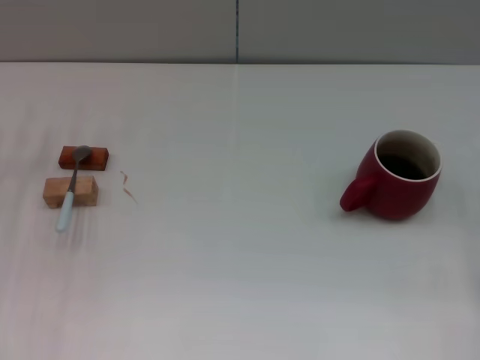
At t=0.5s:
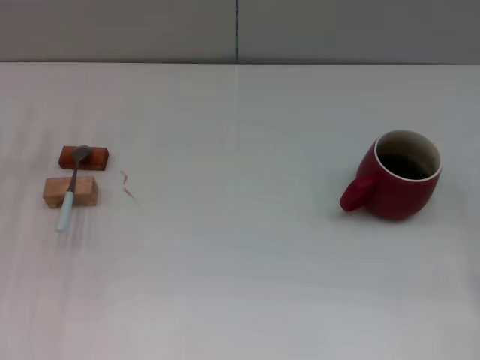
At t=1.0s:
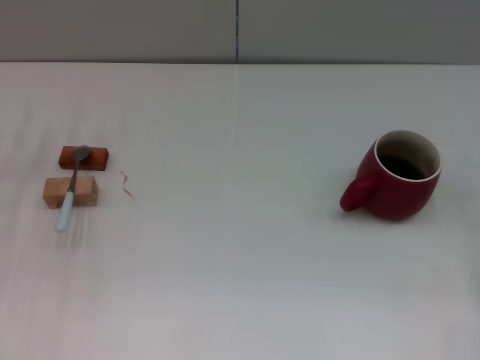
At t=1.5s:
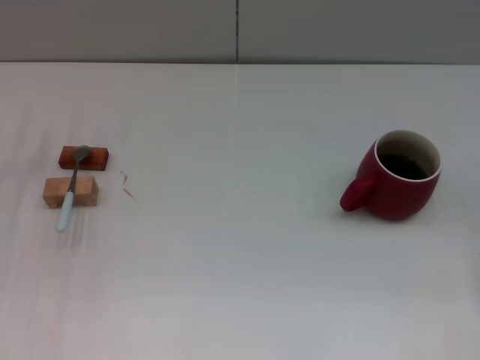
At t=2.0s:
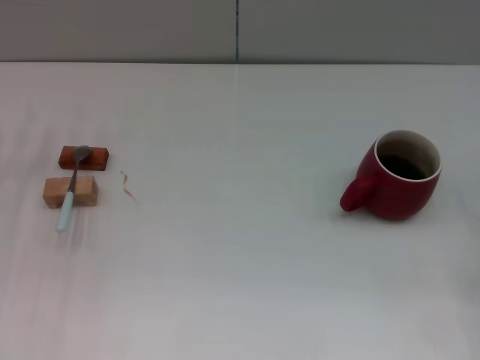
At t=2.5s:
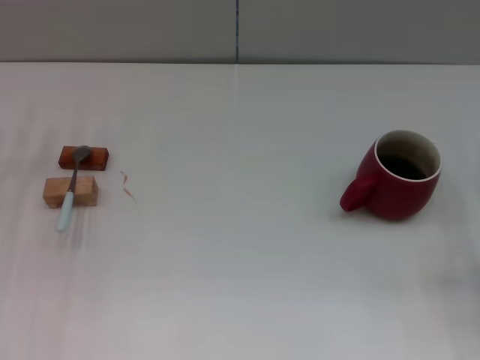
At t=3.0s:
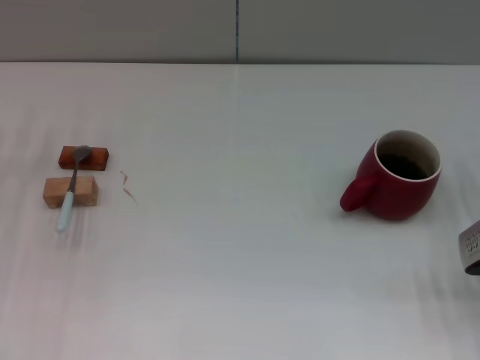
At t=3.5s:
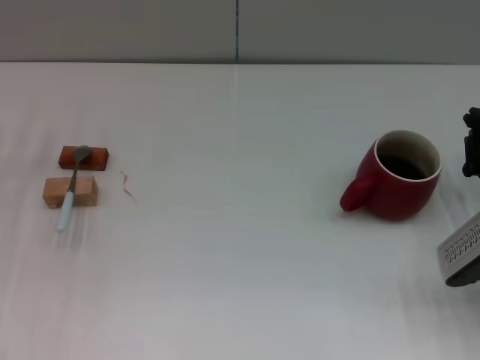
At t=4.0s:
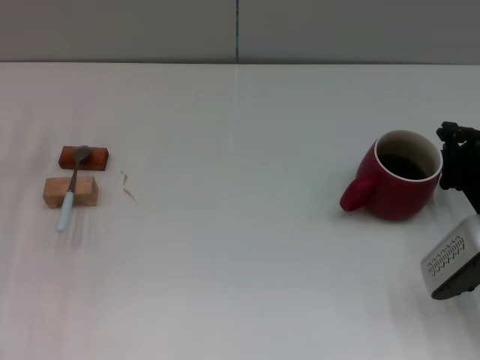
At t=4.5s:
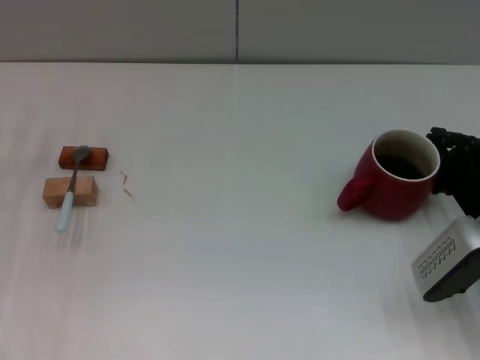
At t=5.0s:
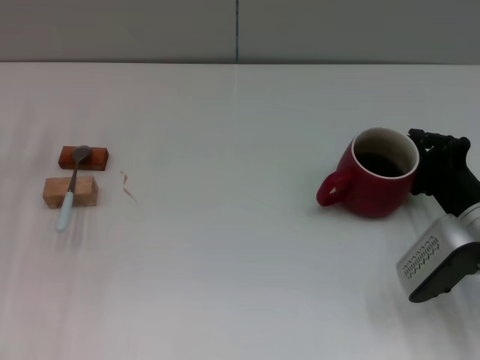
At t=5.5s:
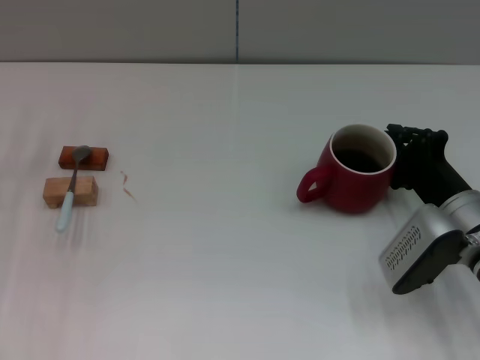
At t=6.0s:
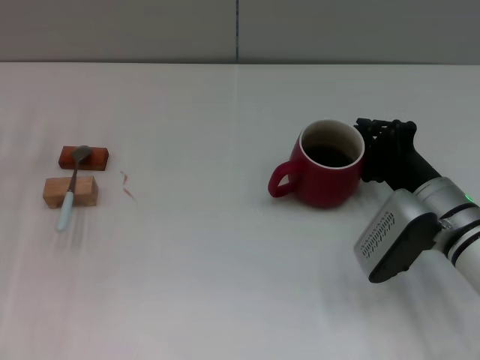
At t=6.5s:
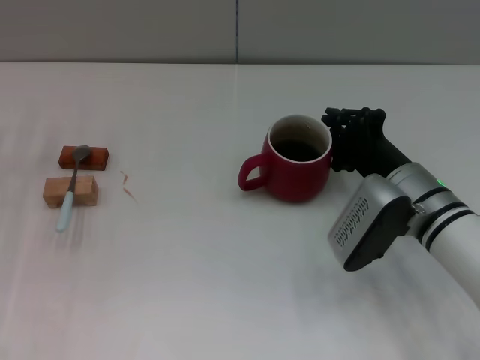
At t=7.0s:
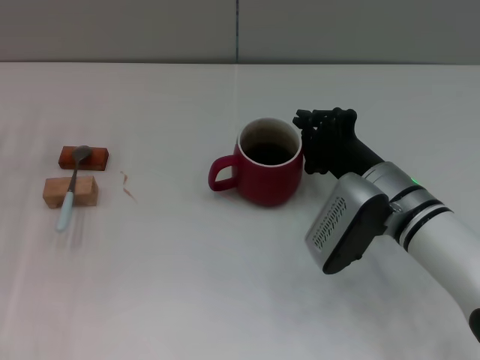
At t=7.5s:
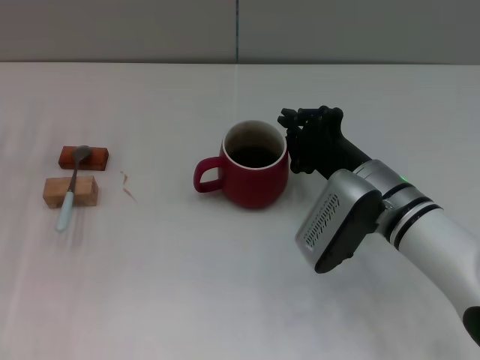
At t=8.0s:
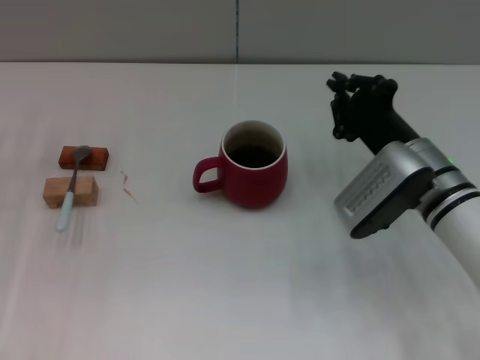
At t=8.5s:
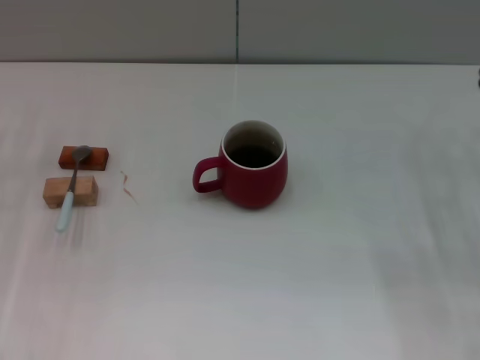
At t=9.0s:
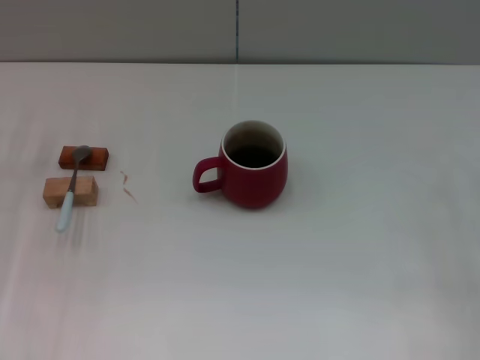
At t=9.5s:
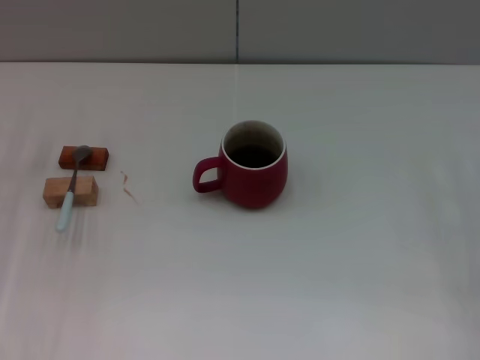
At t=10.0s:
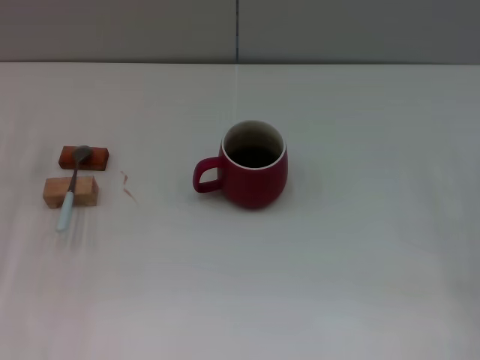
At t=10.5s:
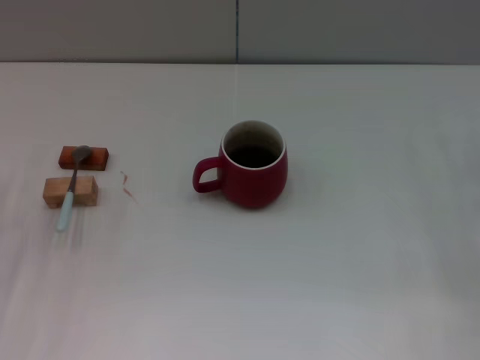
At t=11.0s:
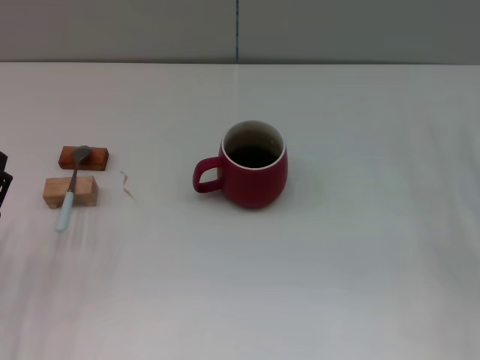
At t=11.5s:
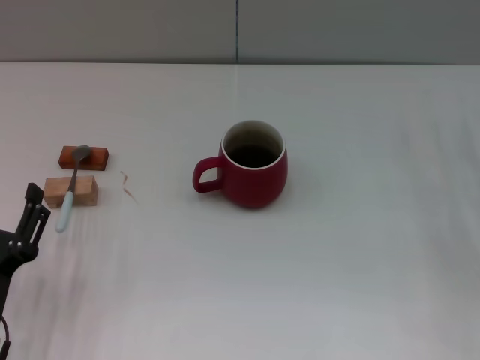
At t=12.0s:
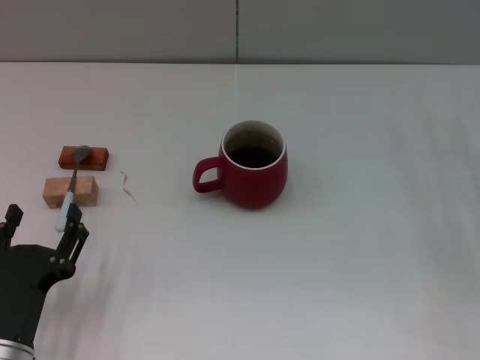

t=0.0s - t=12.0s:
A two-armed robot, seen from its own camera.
Task of the whole recording: Move the red cup to the center, lift the blue spoon, stir it three times in the cup, and put the spoon into the cup.
Step, t=0.0s - t=7.5s: Move the cup with coffee to the center of view with the right gripper.
t=2.0s - t=4.0s: The right gripper heads to the left, covering approximately 10 cm.
t=4.0s - t=6.0s: The right gripper is displaced to the left by approximately 5 cm.
t=8.0s - t=10.0s: The right gripper travels to the right by some 15 cm, and opens up.
t=10.0s - t=12.0s: The left gripper moves backward and to the right, approximately 20 cm.

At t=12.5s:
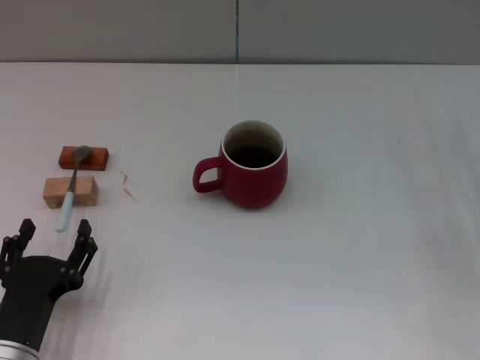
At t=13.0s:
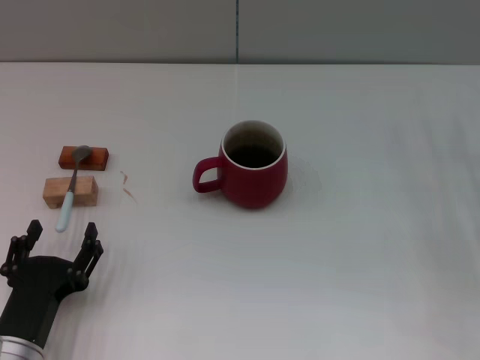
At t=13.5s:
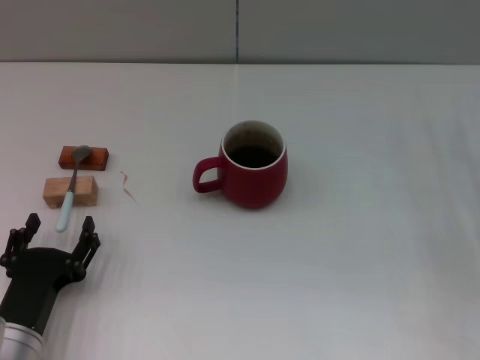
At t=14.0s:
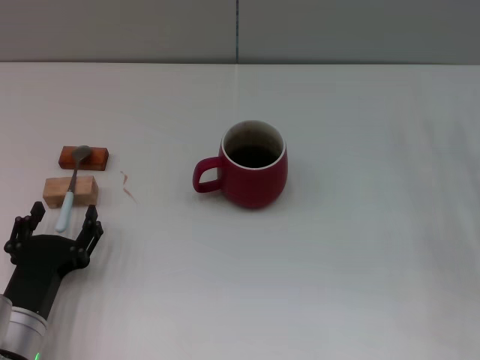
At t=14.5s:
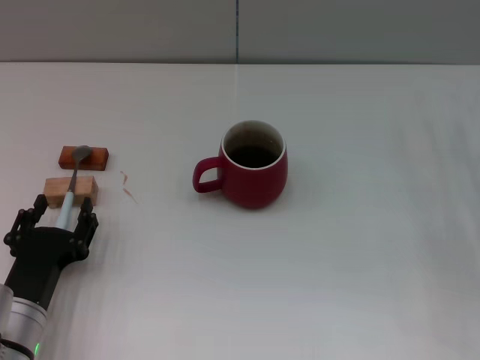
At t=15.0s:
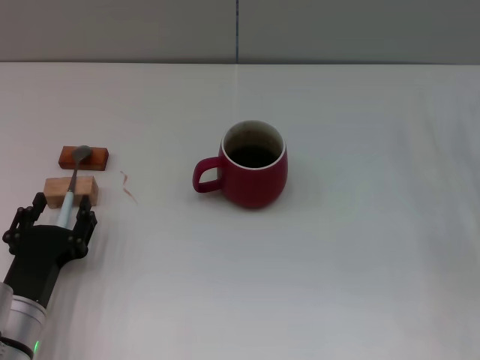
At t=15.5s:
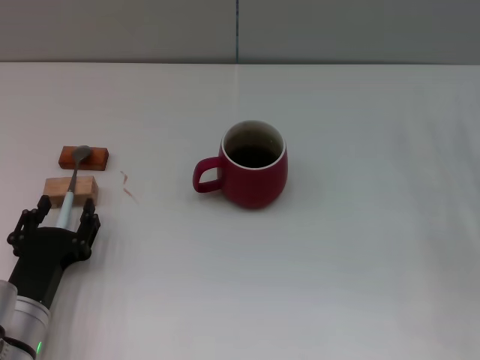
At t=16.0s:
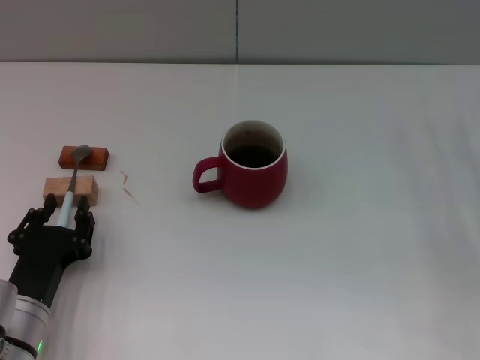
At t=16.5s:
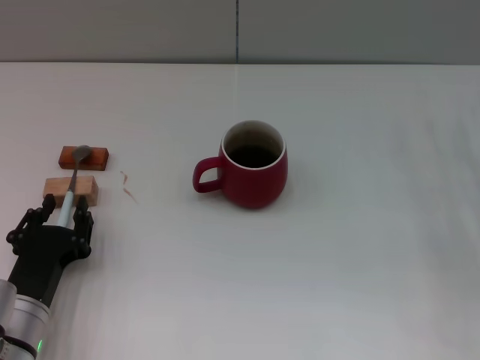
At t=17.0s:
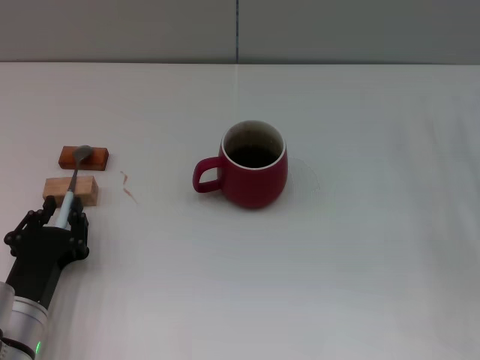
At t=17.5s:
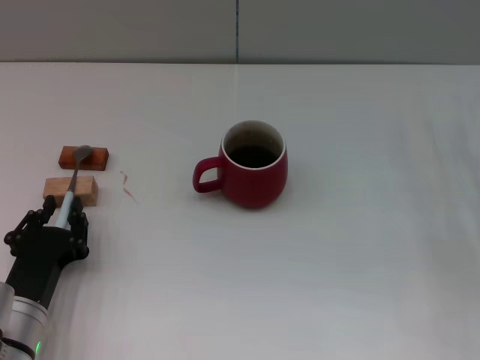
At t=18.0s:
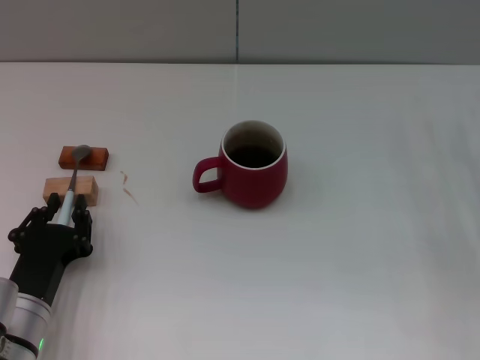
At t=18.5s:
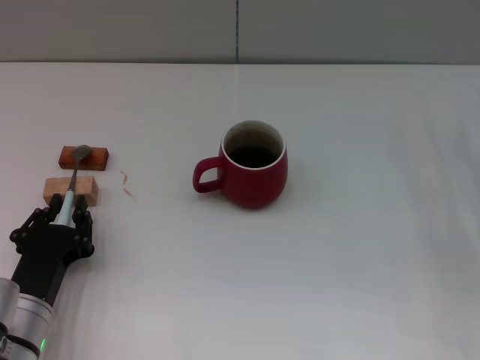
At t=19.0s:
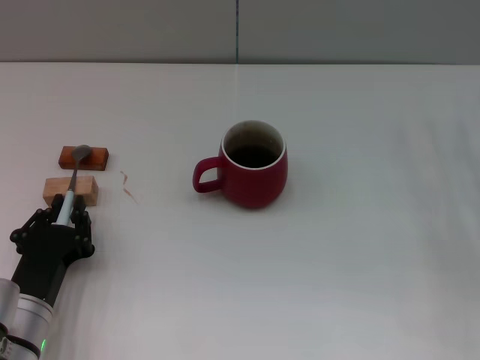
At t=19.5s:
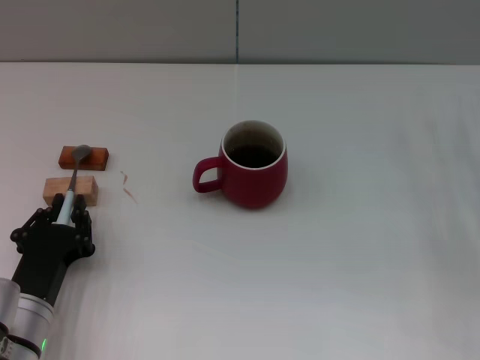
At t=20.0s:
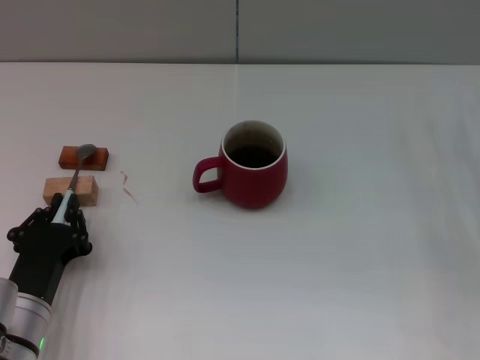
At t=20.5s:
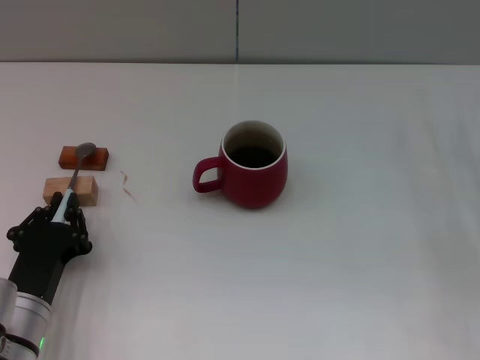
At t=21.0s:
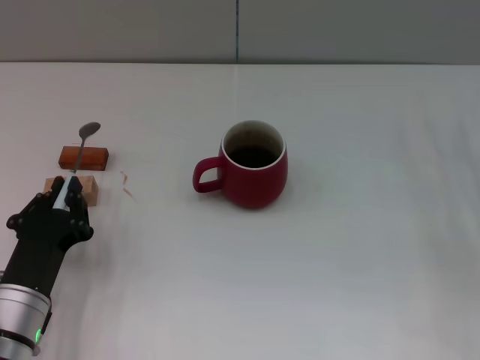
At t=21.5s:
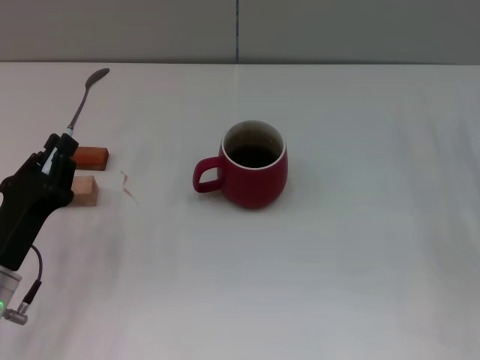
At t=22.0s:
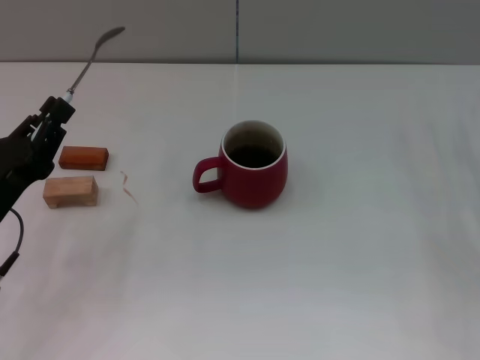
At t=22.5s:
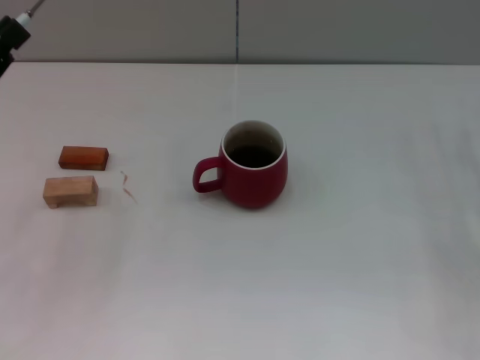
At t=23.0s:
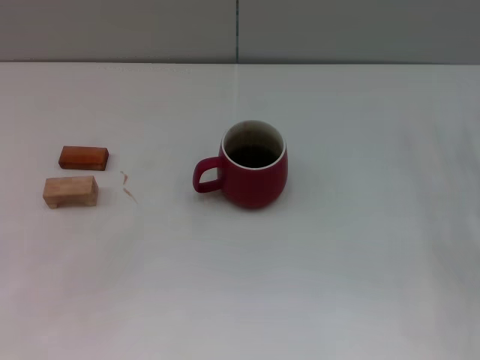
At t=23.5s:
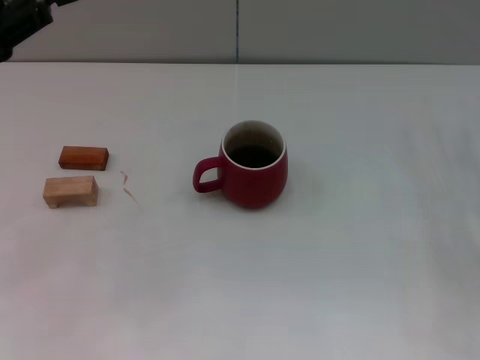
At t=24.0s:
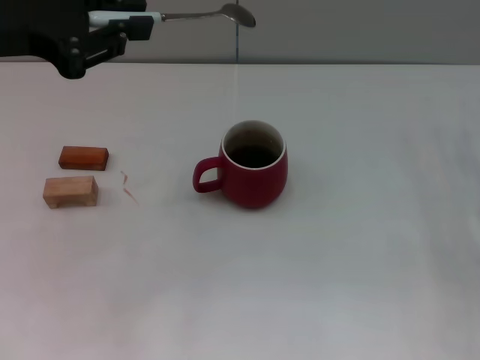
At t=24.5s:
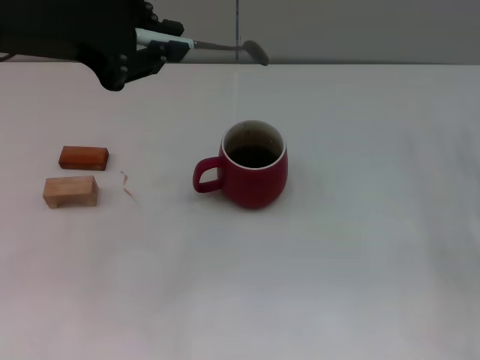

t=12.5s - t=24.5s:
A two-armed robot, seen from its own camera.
Task of the whole recording: Move the red cup to the center, lift the blue spoon, stir it three times in the cup, and put the spoon into the cup.
Step, t=12.5s - t=21.0s: Pick up the spoon with the left gripper.
t=12.5s - t=14.5s: There are only small adjustments of the grippers.
t=14.5s - t=16.5s: The left gripper closes its fingers.
t=16.5s - t=20.5s: The two grippers keep their place.
t=20.5s - t=22.5s: The left gripper travels upward, to the left and forward by some 20 cm.
t=22.5s - t=24.5s: The left gripper is displaced upward and to the right by some 20 cm.

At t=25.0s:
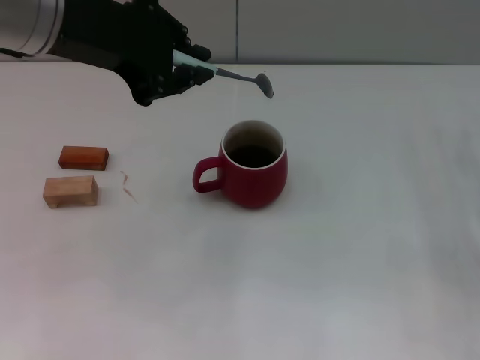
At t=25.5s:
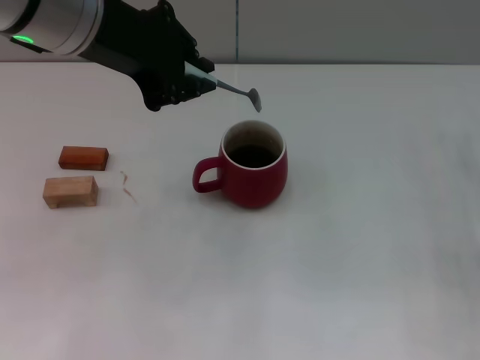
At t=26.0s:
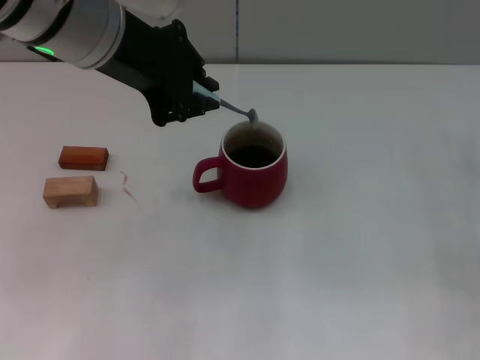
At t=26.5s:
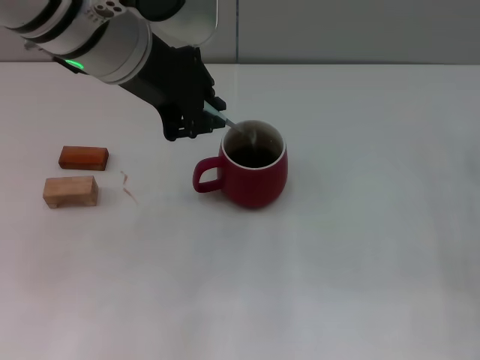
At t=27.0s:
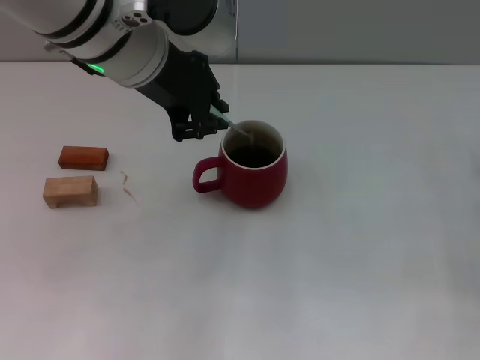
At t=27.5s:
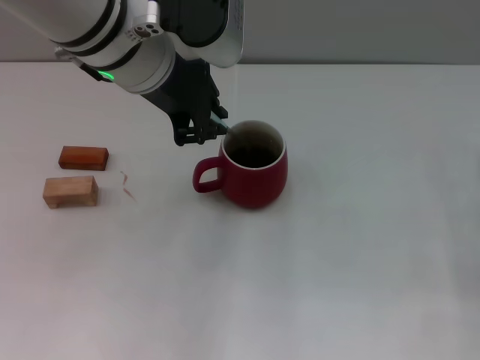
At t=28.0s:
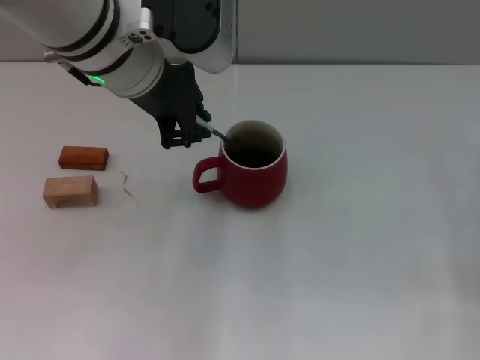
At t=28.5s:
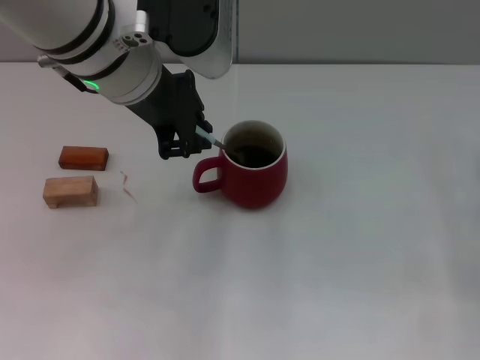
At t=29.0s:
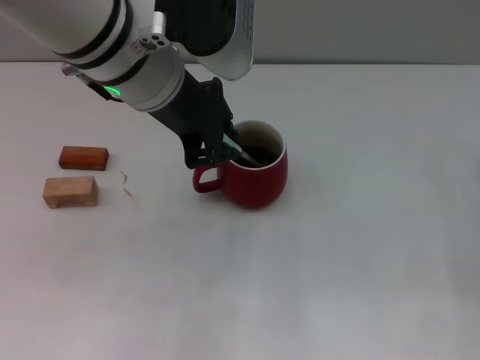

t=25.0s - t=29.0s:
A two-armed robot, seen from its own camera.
Task of the whole recording: Move the red cup to the center, lift the blue spoon, stir it three times in the cup, and put the spoon into the cup.
t=25.0s - t=27.0s: The left gripper moves to the right, approximately 5 cm.
t=27.0s - t=29.0s: The grippers move only a little.
